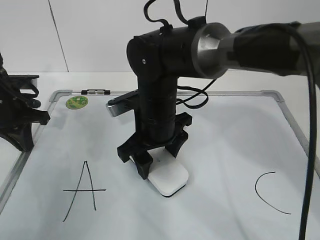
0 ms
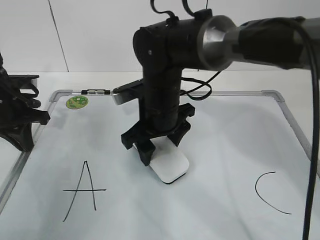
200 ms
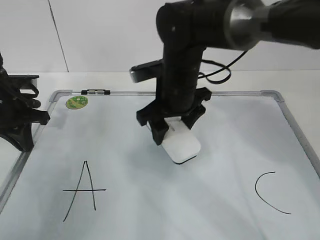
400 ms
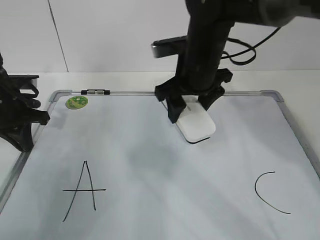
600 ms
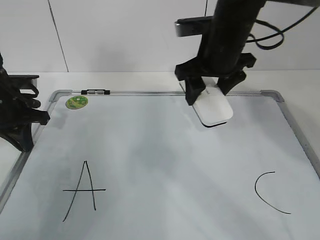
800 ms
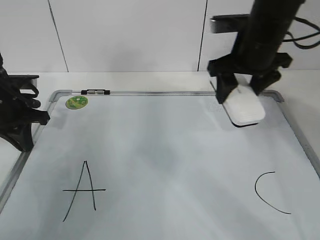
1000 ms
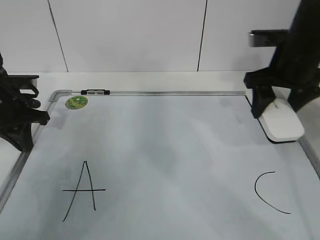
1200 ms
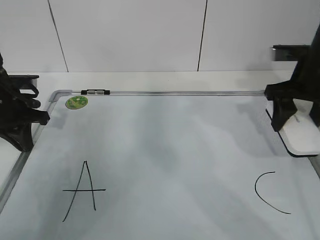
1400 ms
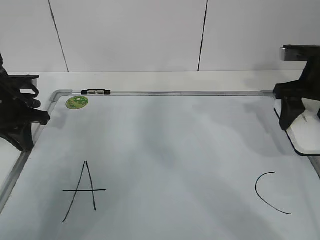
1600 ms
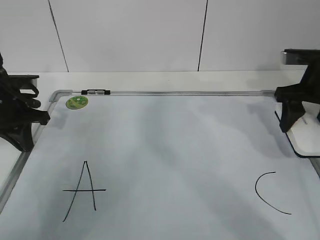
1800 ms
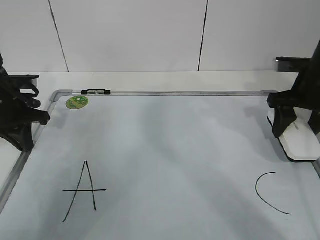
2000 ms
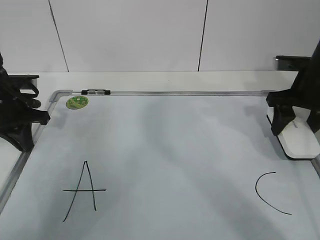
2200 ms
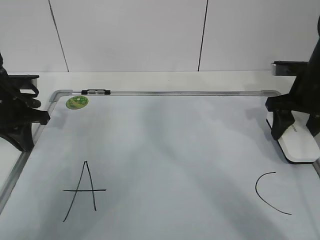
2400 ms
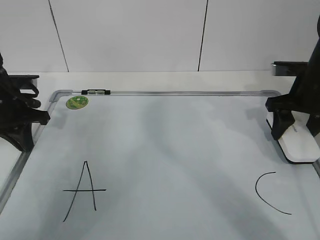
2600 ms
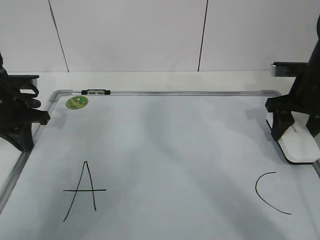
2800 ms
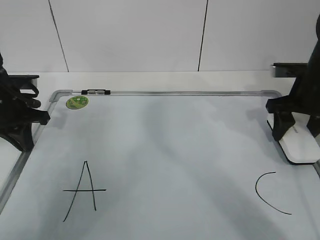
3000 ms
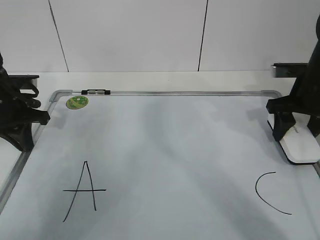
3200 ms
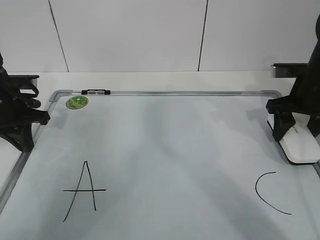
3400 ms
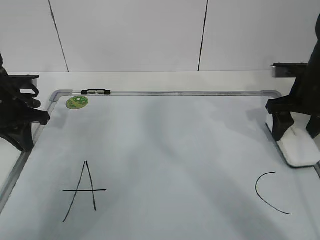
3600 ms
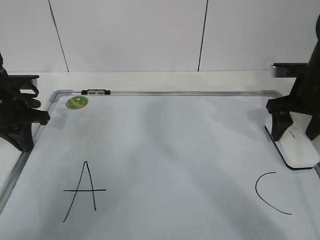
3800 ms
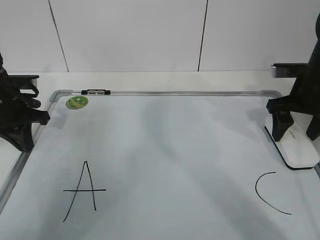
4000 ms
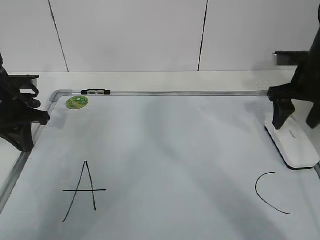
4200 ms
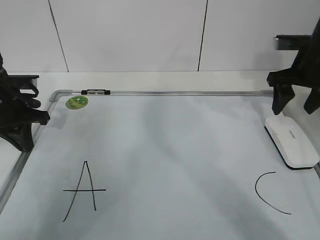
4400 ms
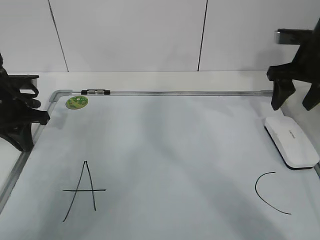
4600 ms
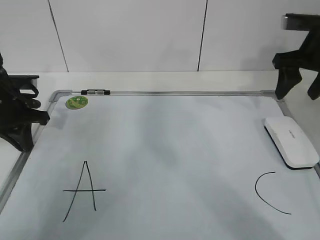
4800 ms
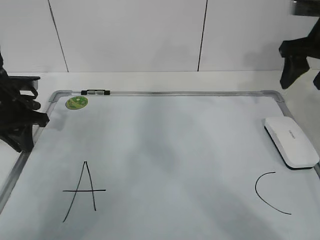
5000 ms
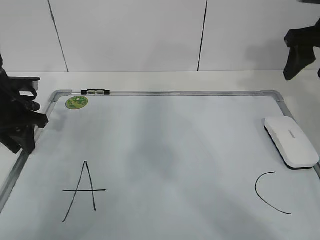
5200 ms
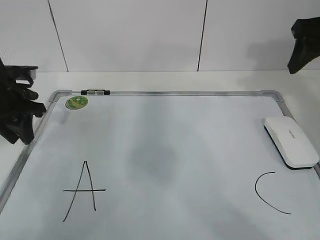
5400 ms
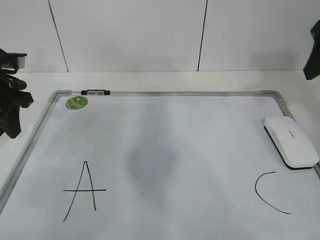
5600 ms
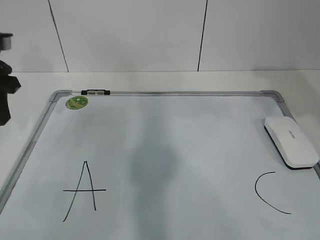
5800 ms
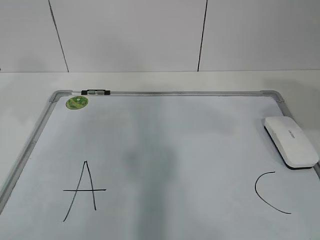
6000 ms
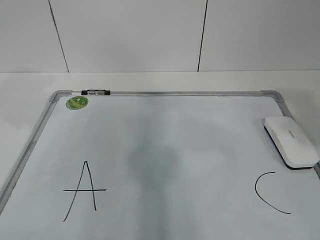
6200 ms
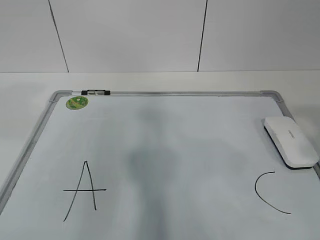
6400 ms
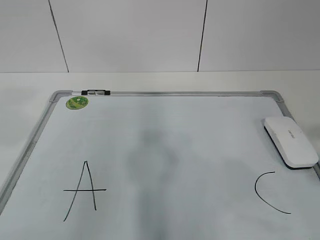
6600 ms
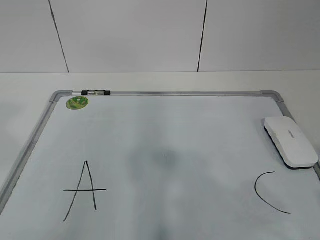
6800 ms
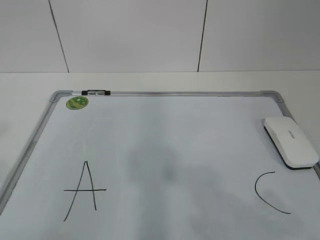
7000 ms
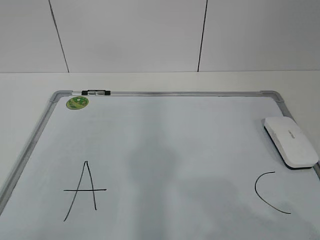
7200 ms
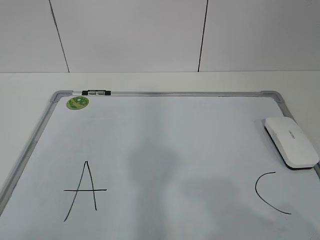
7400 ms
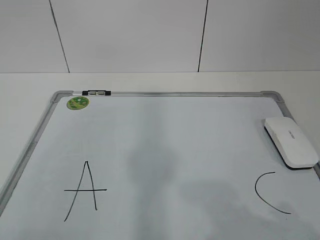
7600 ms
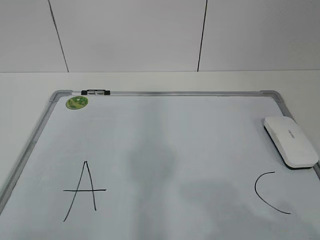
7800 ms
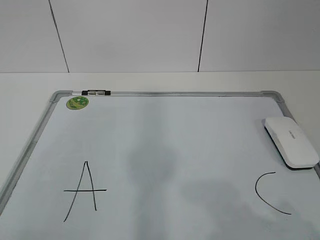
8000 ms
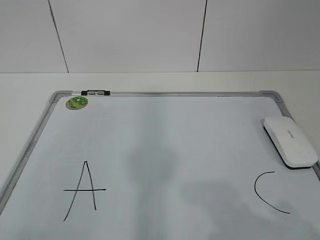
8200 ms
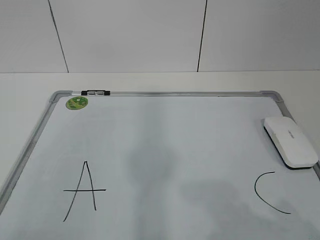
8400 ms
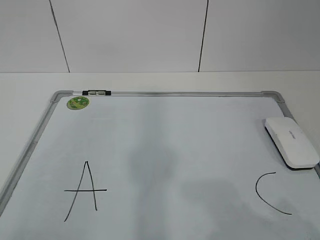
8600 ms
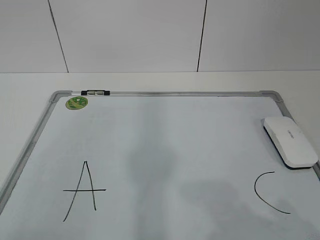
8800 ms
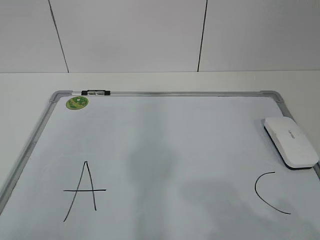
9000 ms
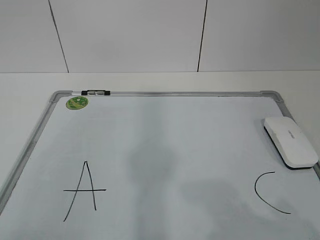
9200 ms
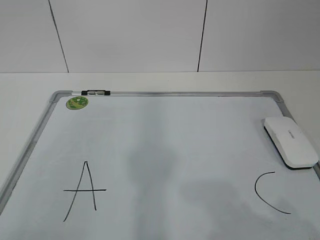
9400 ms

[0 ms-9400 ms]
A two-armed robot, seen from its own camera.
Task of the whole recording: pick up the eraser on the blackboard and erase the letter "B".
0 ms to 1600 ms: The right gripper moves to the right, about 25 cm.
1600 ms to 3200 ms: There are only small adjustments of the grippers.
3200 ms to 4800 ms: The right gripper shifts approximately 10 cm upward, and opens up.
4800 ms to 6200 ms: The left gripper goes some 20 cm upward and backward, and opens up, while the right gripper heads backward and upward, covering approximately 25 cm.
6200 ms to 7800 ms: The right gripper shifts approximately 15 cm backward and downward.
7800 ms to 9400 ms: Both grippers stay about where they are.

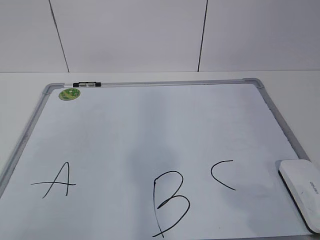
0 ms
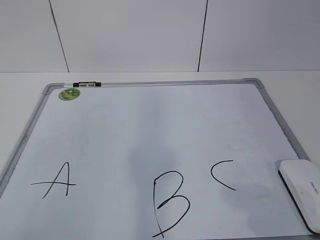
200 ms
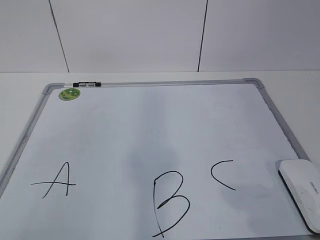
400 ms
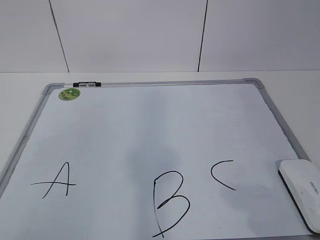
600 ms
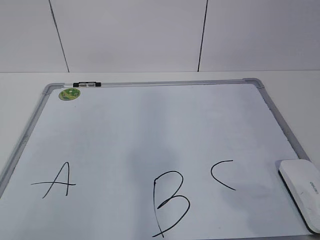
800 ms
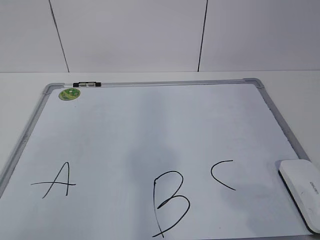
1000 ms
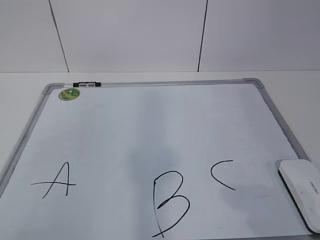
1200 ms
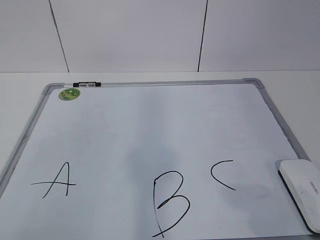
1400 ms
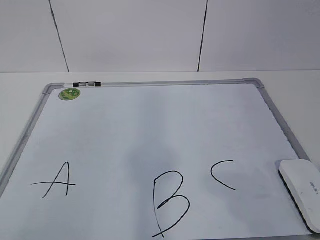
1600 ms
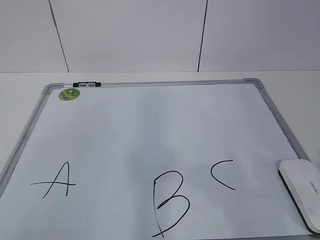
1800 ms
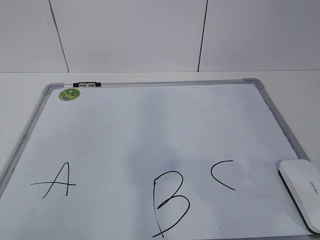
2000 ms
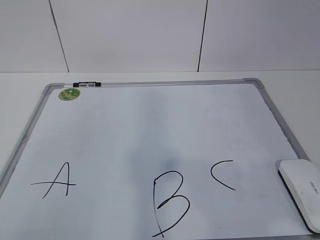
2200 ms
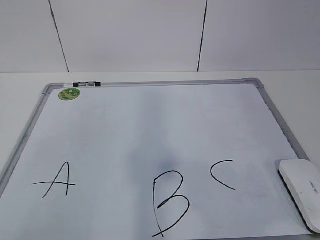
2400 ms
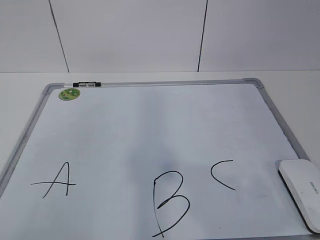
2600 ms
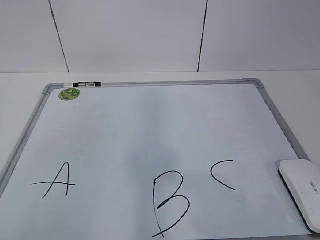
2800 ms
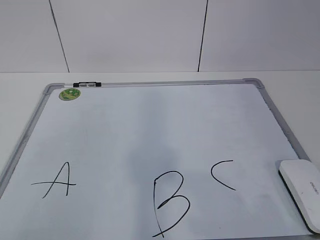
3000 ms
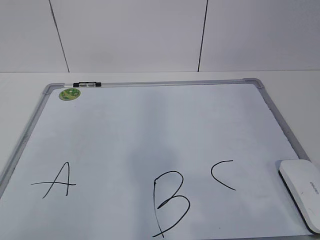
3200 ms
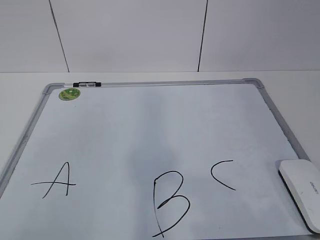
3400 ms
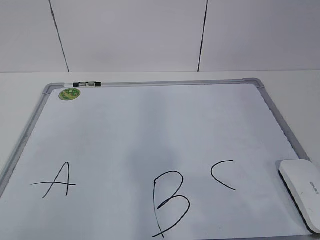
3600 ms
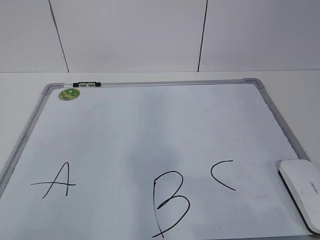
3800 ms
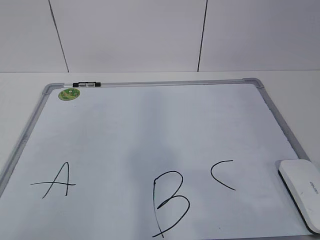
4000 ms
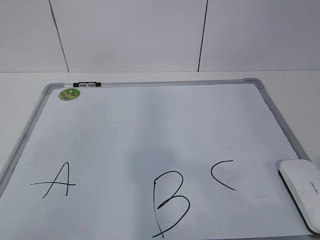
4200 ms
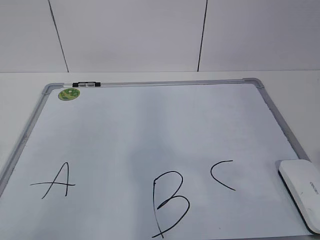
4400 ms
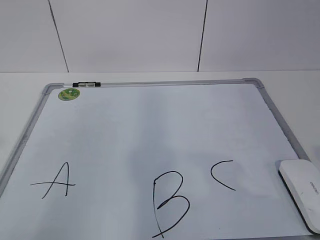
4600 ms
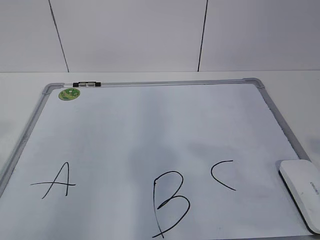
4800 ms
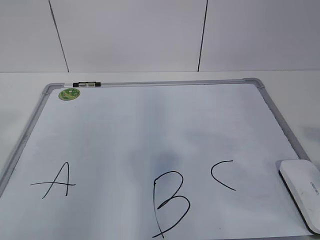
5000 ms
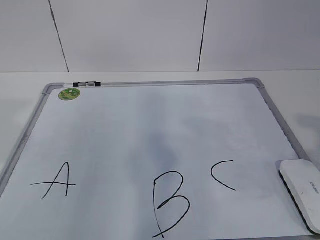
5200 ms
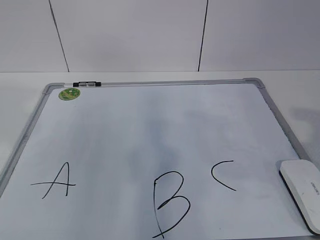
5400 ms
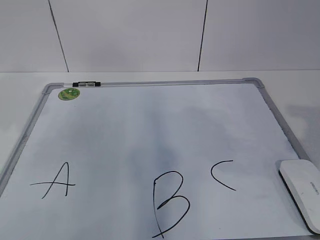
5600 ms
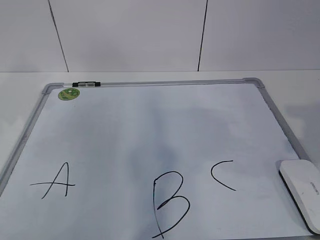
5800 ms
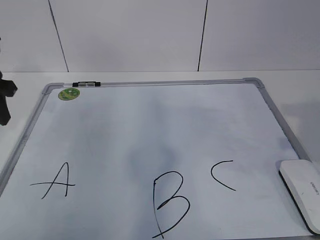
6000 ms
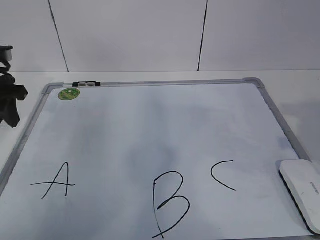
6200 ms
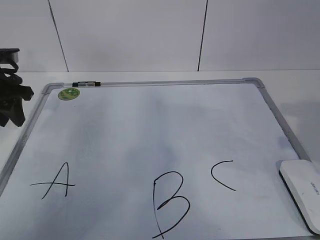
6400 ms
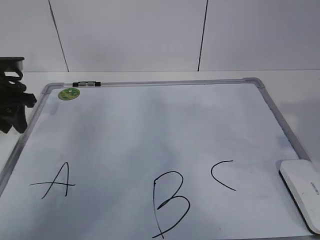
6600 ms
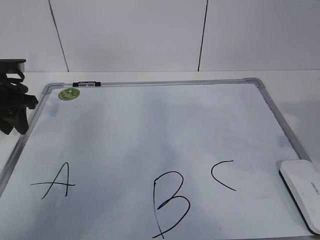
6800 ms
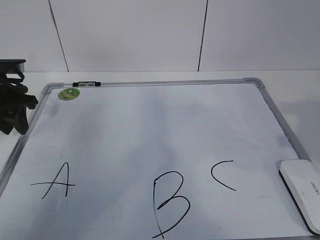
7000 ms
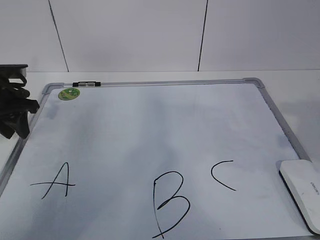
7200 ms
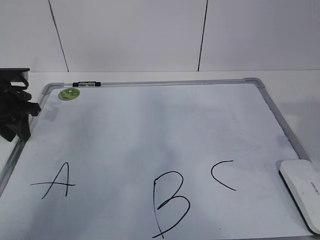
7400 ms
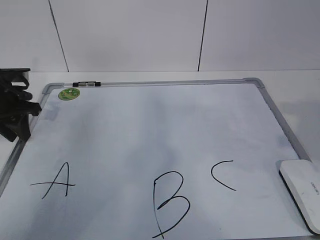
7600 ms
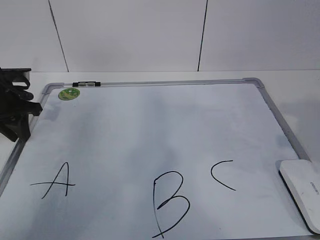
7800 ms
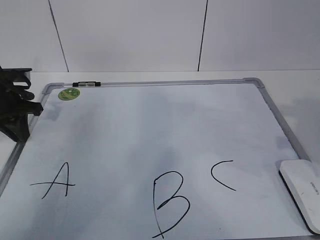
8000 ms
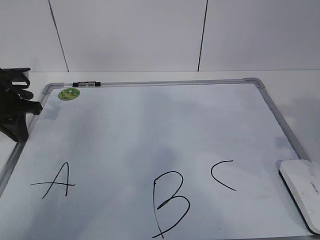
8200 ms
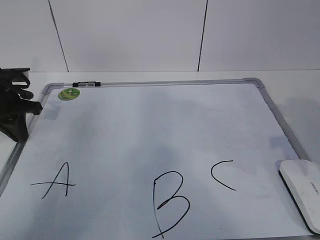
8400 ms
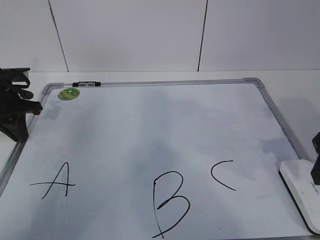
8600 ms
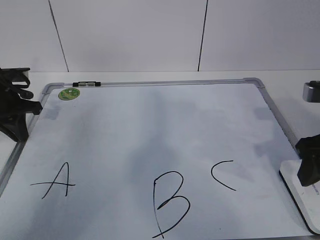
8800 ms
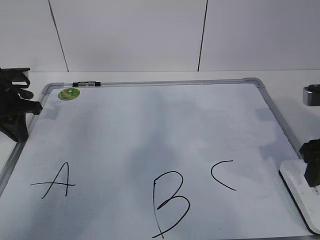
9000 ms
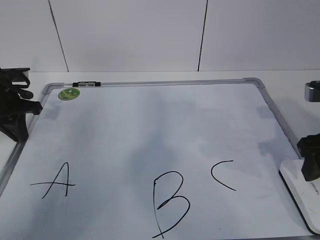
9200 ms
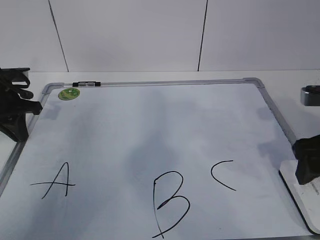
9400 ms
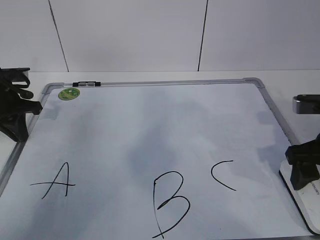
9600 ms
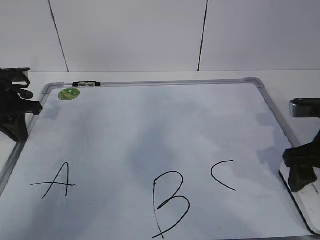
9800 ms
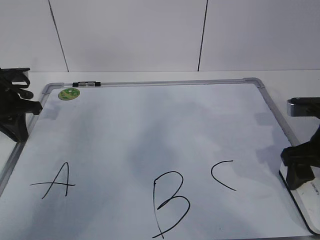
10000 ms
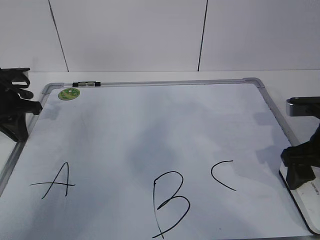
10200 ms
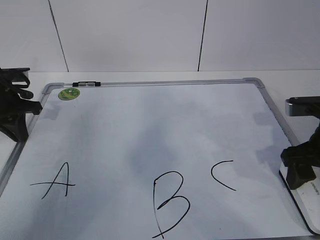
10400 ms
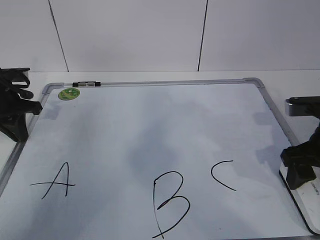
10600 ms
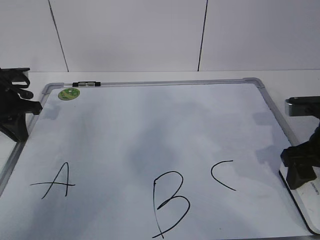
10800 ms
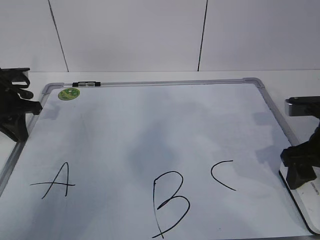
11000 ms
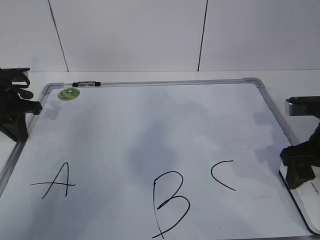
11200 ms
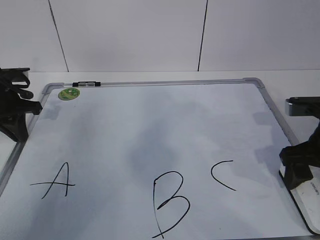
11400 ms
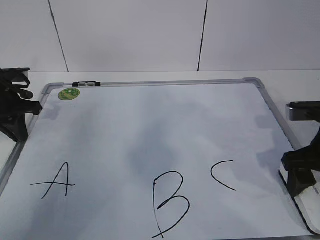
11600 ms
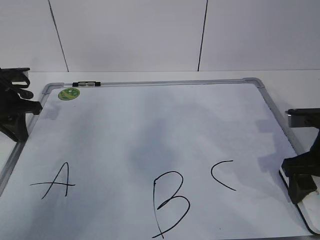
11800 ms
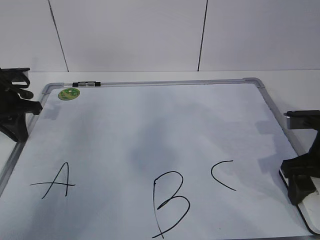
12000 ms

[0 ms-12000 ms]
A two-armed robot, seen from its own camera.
Task of the whole recording: pick up the eraser on the blackboard and erase the letter "B".
Step, 0 ms to 6600 ms: Hold the drawing board steady with your left hand.
Step, 7000 ms to 10600 ms: Grab the eraser with your right hand.
4400 ms to 6000 ms: The left gripper goes roughly 30 cm forward. Meanwhile the right gripper goes approximately 15 cm forward.
6000 ms to 7600 ms: The left gripper heads downward and forward, covering about 10 cm.
7600 ms to 9000 ms: The right gripper moves downward and forward, about 10 cm, and opens up.
9000 ms to 12000 ms: The grippers stay close to where they were, moving slightly.

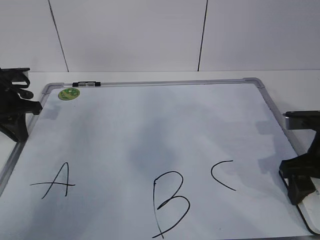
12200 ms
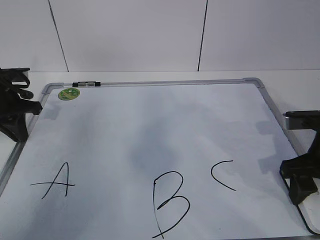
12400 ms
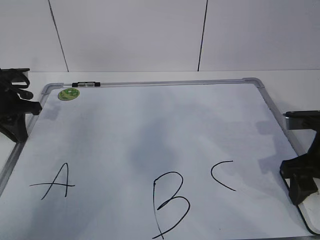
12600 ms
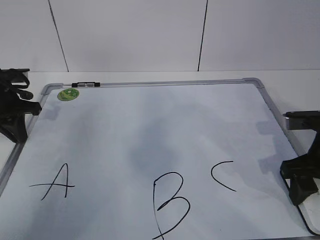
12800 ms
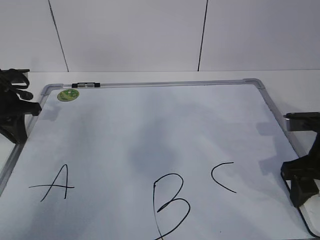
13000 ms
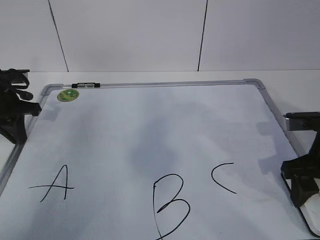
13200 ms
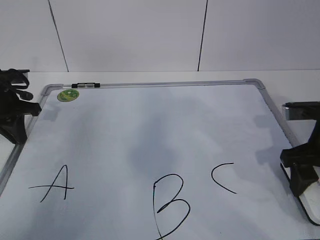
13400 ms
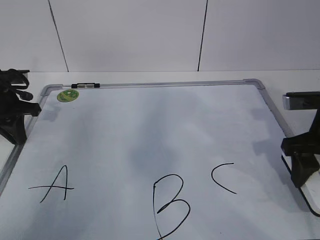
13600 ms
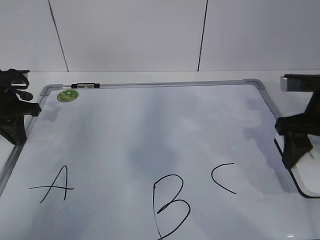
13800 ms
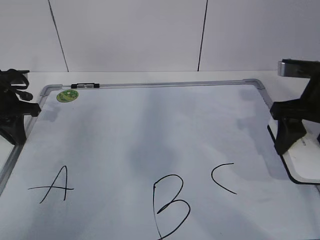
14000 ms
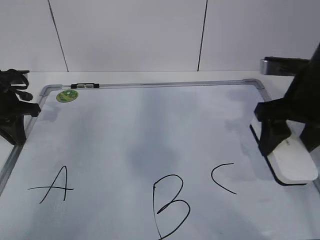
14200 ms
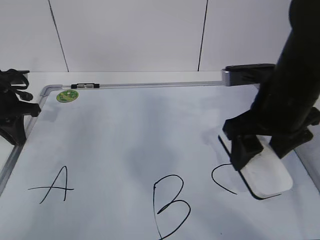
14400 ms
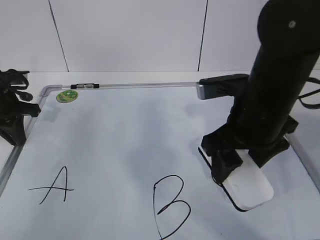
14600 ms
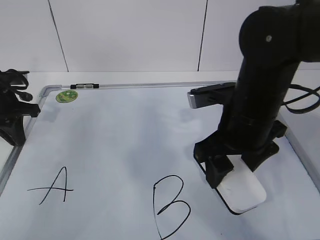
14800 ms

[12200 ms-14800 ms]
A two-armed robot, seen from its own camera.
Task of the whole recording: pick up the eraser on the blackboard and erase the letter "B".
12200 ms to 13400 ms: The grippers make only small movements.
13400 ms to 14800 ms: The right gripper goes about 15 cm to the left.
